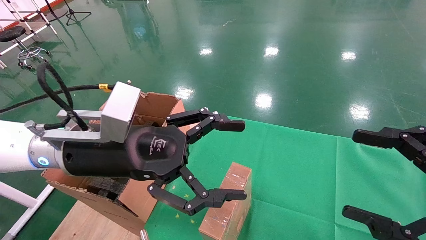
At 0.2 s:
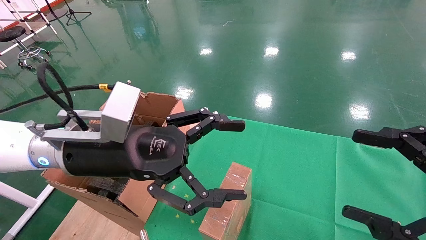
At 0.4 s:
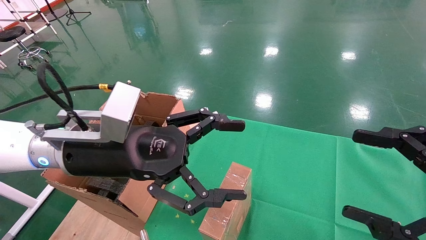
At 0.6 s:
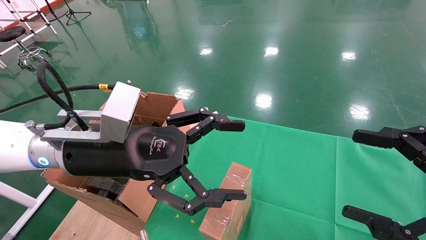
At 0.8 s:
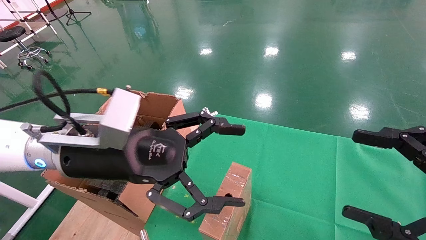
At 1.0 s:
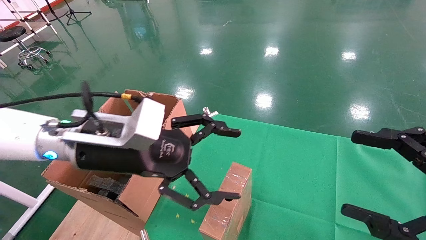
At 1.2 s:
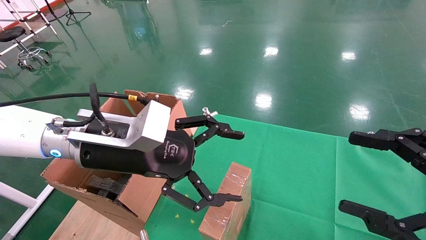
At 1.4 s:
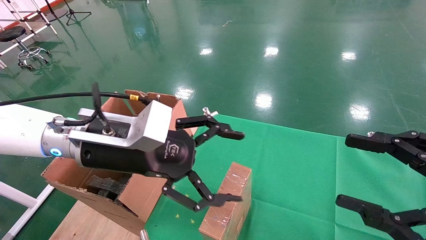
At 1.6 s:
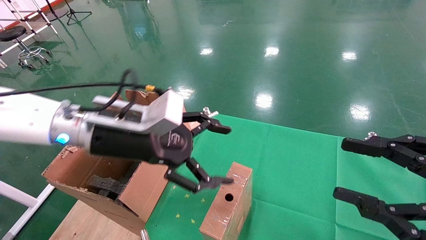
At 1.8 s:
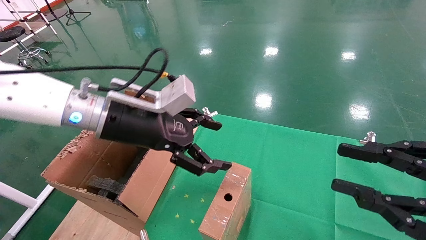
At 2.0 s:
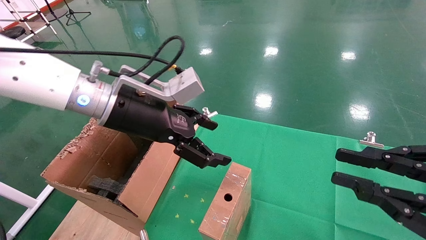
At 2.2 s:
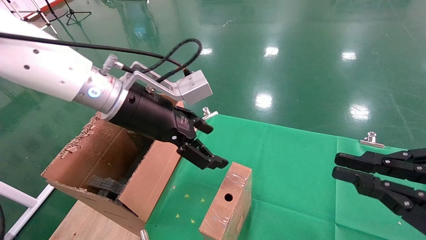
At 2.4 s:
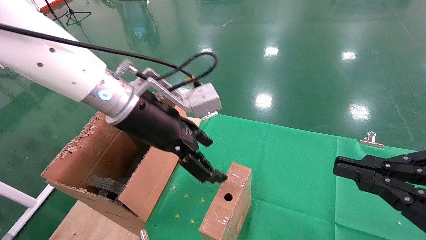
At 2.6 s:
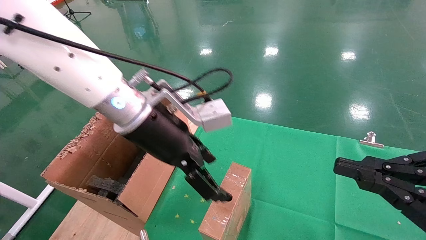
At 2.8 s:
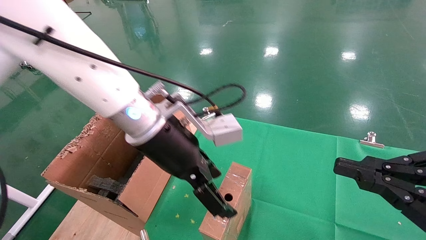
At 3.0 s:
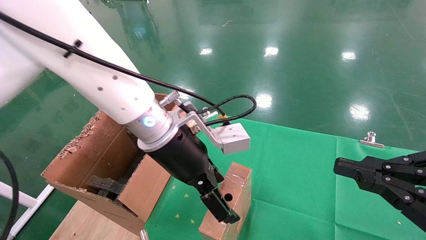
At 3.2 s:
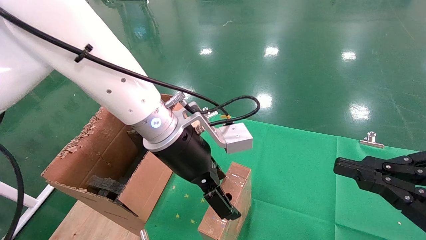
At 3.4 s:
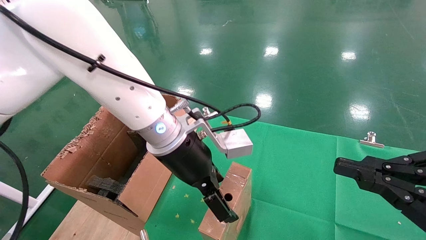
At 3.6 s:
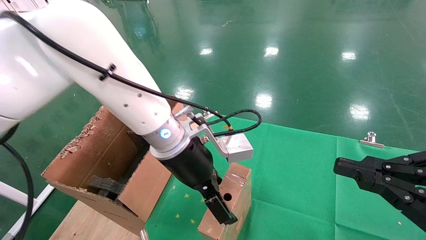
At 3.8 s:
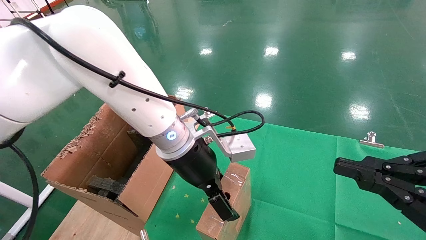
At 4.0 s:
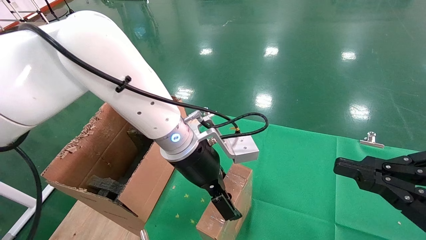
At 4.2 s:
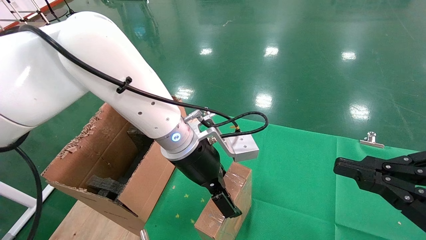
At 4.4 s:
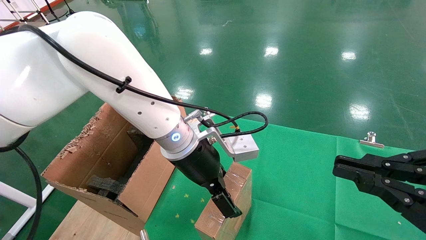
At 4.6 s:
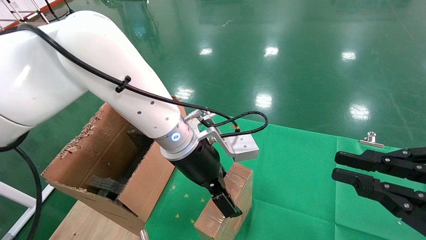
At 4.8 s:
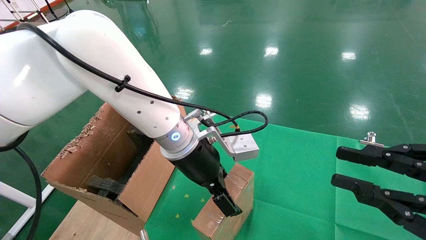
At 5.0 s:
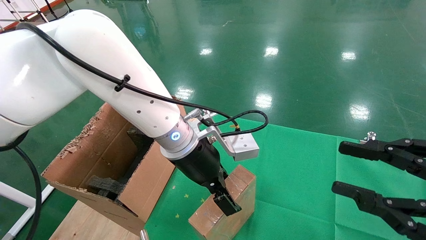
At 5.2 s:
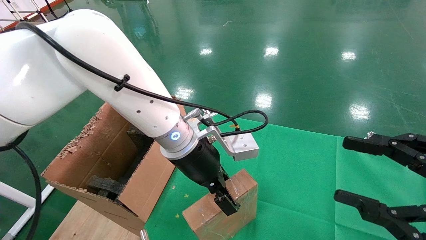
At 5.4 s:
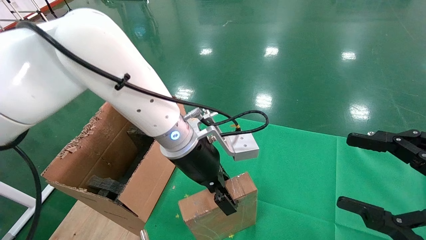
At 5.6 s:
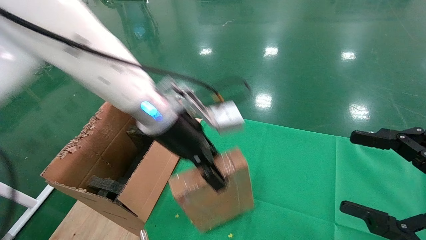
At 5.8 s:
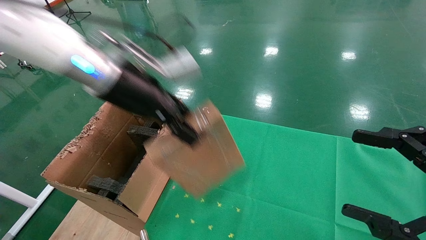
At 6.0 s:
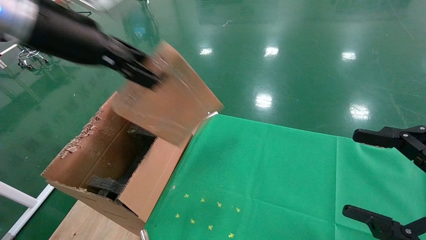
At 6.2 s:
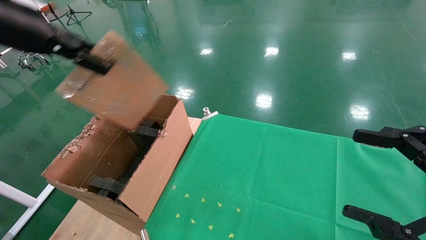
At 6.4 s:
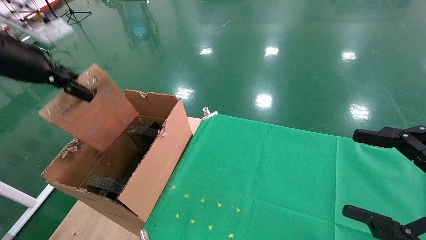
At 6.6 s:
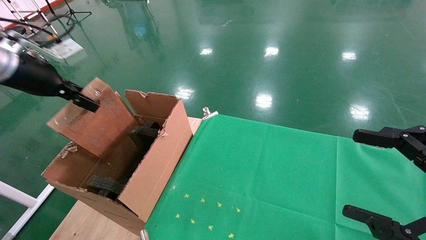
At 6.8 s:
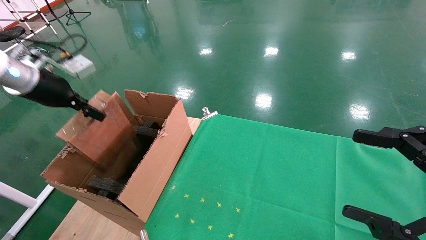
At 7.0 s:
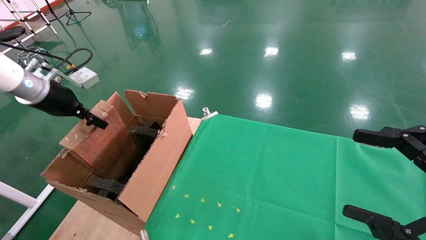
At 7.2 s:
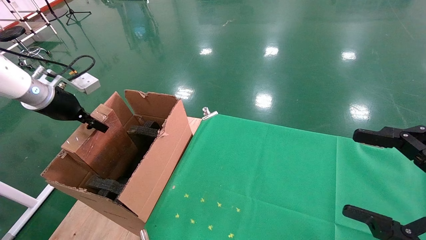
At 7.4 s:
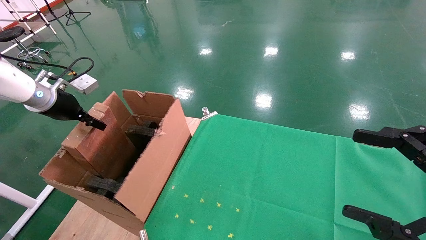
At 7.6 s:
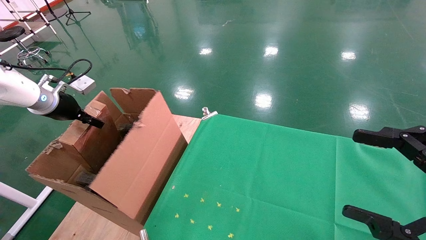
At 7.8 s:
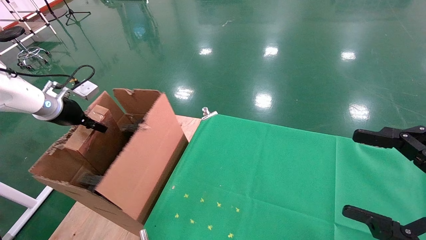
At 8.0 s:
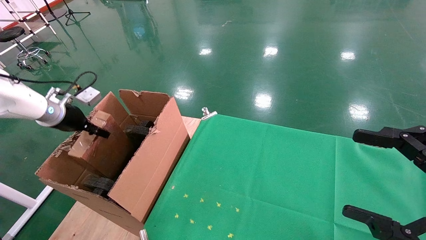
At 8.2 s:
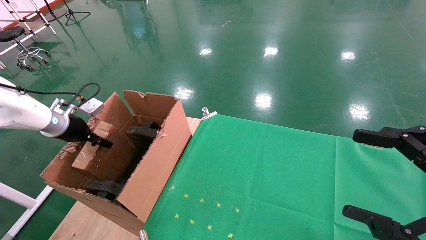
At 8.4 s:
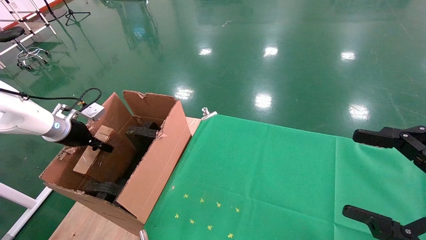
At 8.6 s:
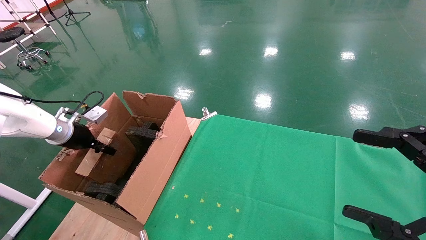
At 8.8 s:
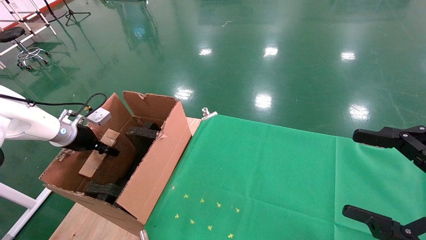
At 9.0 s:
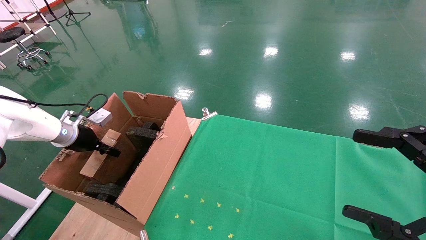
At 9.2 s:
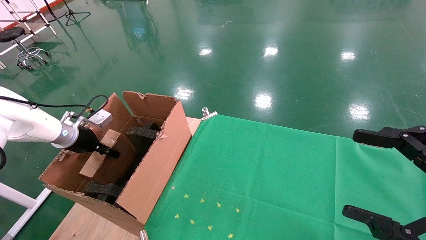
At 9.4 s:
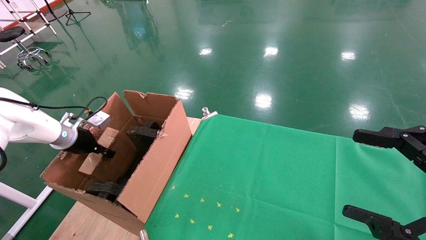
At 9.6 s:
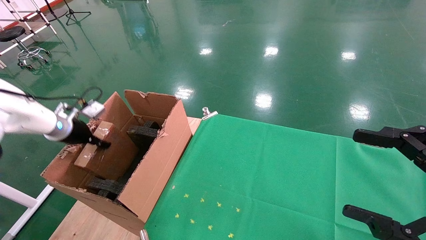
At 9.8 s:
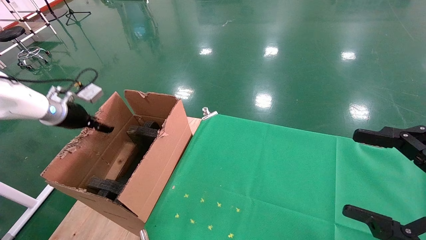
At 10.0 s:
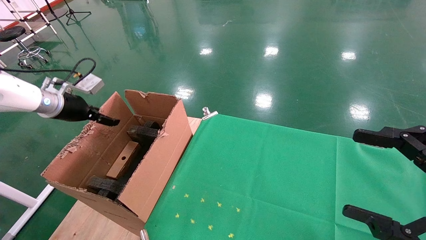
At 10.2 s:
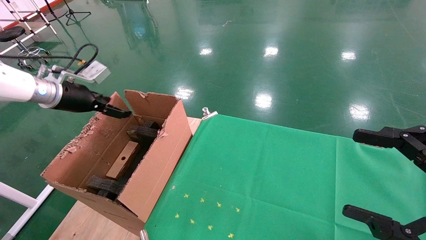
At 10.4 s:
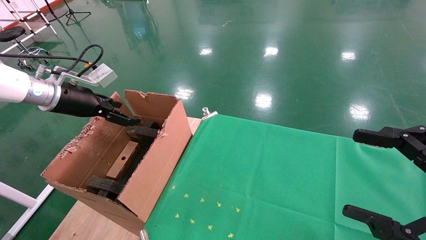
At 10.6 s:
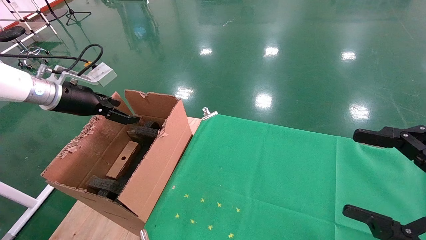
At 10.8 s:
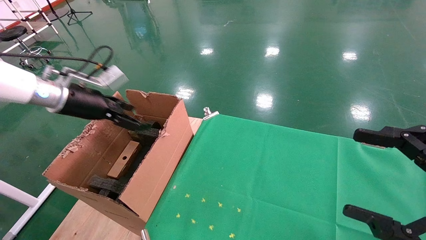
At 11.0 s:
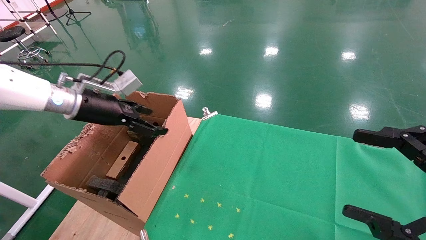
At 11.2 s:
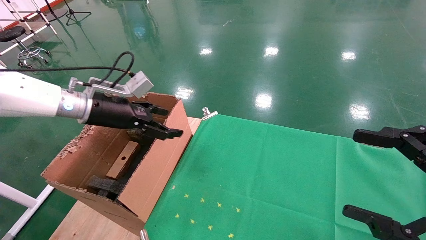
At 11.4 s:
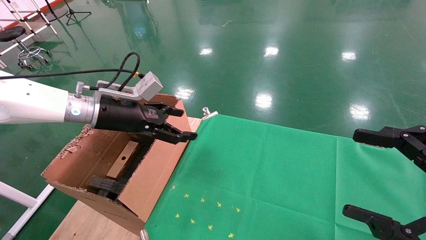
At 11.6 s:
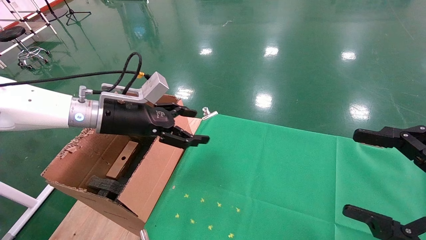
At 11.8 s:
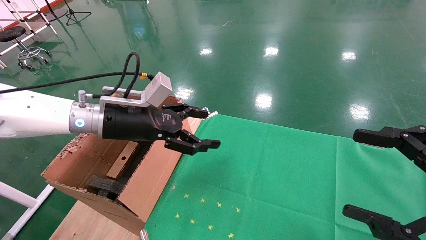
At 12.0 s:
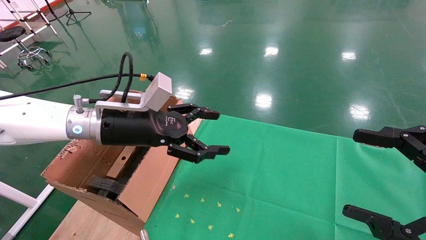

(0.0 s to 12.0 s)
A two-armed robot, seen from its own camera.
Task of the whole recording: using a robotic arm to pick up a cardboard box and palace it the carton.
Step, 1.2 s - 5.2 s: Pick up the mouse and the power cord paper box.
Step, 5.4 s - 9.6 s: Place the mouse and the power cord paper box into the container.
1.6 s - 3.0 s: The right gripper closes up. Meanwhile the left gripper travels to the right by about 10 cm.
3.0 s - 4.4 s: The left gripper changes place by roughly 5 cm.
4.4 s - 6.0 s: The right gripper opens. The left gripper heads to the left and upward, covering approximately 25 cm, and closes up.
6.0 s - 7.6 s: The left gripper shifts about 25 cm to the left, downward and forward.
7.6 s - 9.0 s: The left gripper is displaced downward by roughly 10 cm.
9.0 s - 10.4 s: The left gripper is displaced upward by roughly 15 cm, and opens its fingers.
10.4 s - 12.0 s: The left gripper travels to the right by roughly 20 cm.

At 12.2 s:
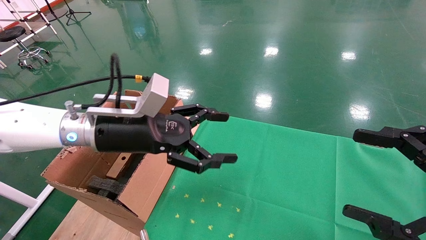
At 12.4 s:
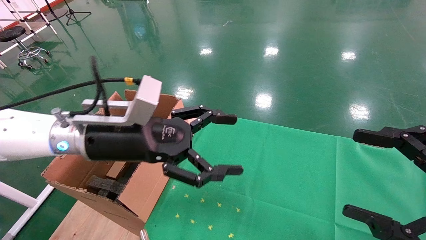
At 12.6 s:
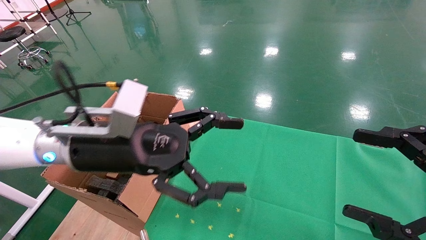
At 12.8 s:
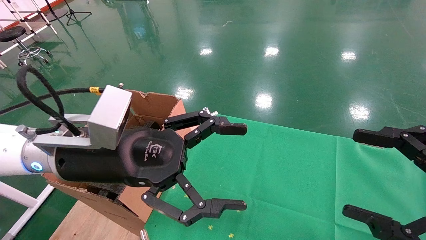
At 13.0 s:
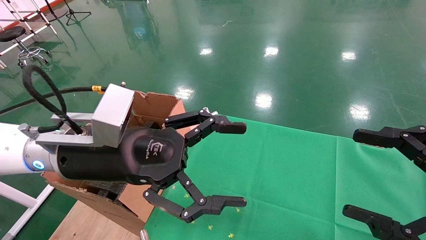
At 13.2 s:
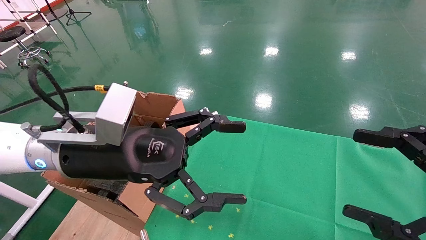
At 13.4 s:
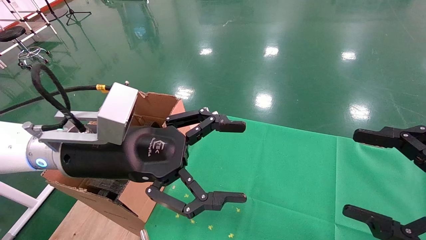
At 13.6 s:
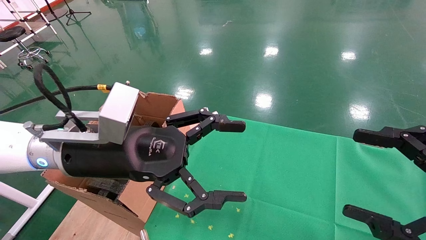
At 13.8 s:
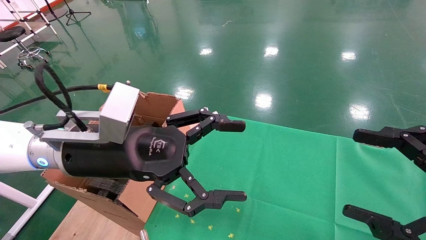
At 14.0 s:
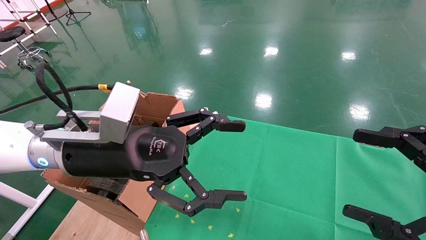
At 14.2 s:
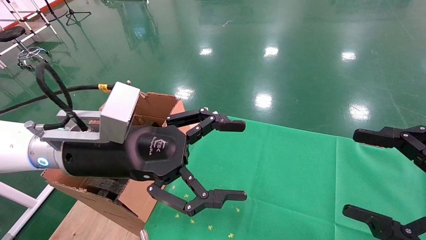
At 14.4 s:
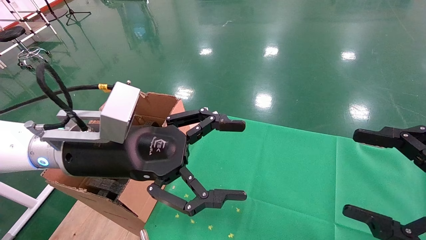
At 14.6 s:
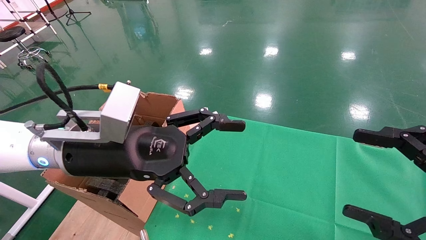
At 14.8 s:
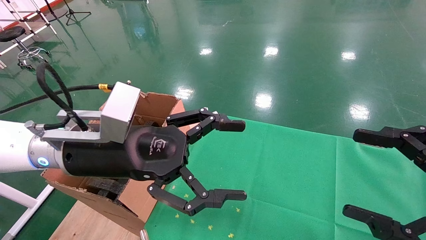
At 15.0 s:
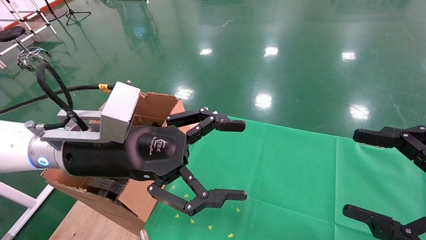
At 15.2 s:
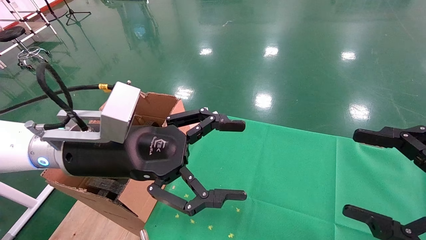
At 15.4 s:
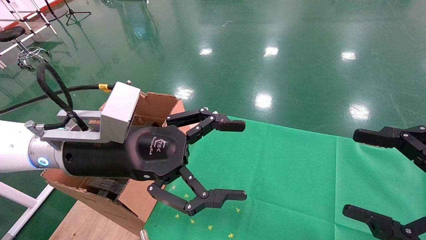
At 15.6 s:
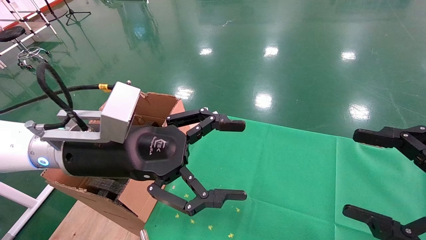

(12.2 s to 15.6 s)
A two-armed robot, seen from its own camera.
Task of the whole recording: using a robotic arm to pick up a cardboard box and palace it the carton.
12.2 s - 13.8 s: The left gripper goes some 5 cm backward.
13.8 s - 15.6 s: Neither gripper changes place.
